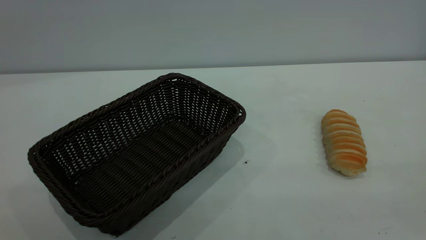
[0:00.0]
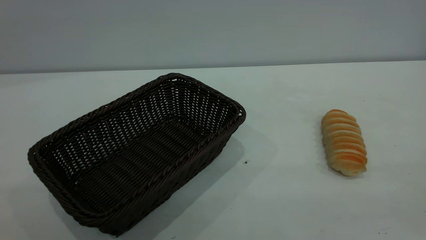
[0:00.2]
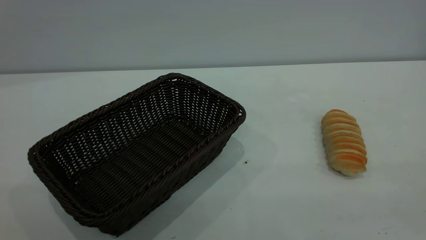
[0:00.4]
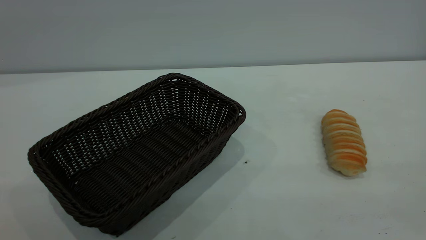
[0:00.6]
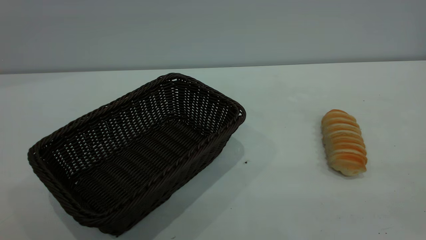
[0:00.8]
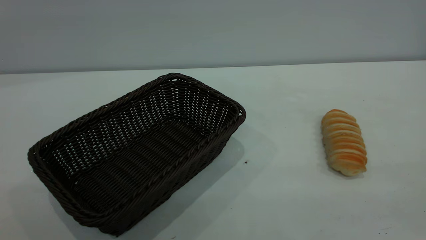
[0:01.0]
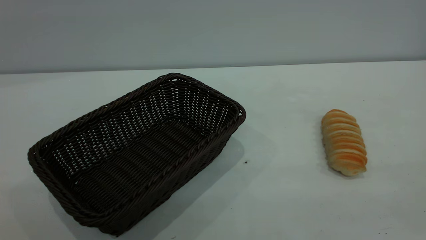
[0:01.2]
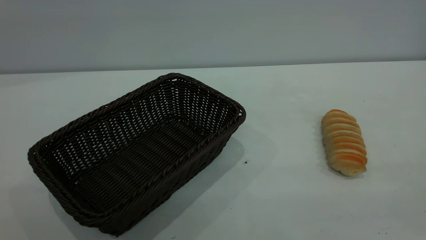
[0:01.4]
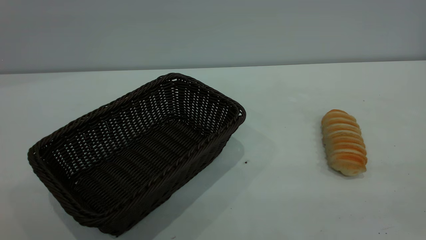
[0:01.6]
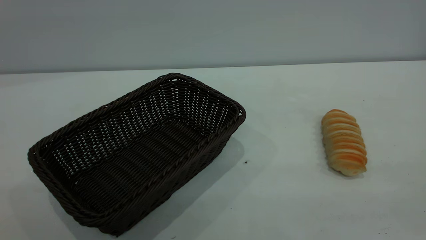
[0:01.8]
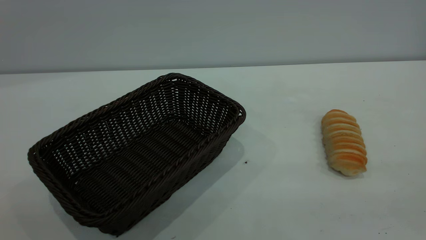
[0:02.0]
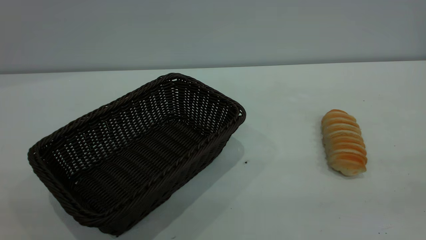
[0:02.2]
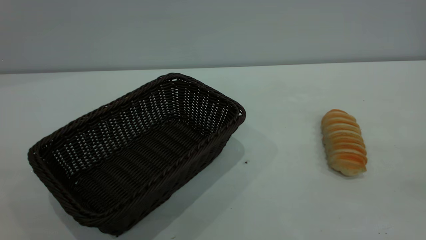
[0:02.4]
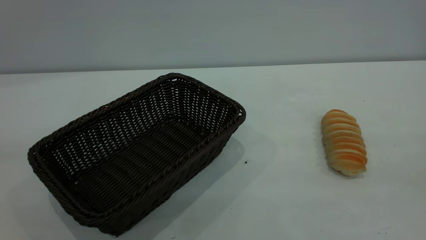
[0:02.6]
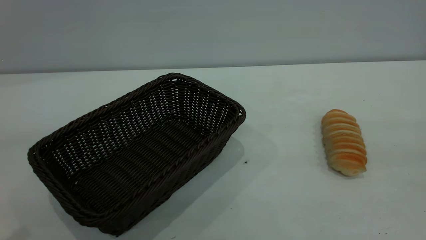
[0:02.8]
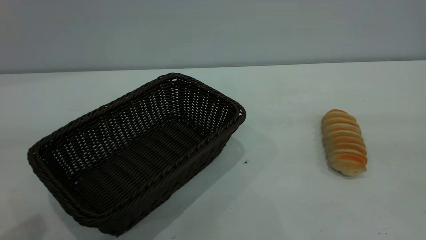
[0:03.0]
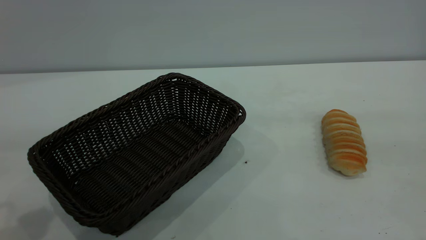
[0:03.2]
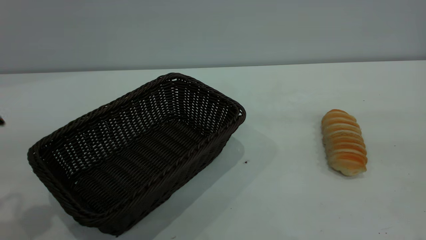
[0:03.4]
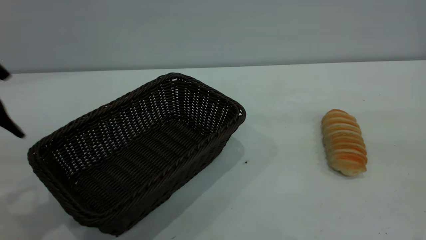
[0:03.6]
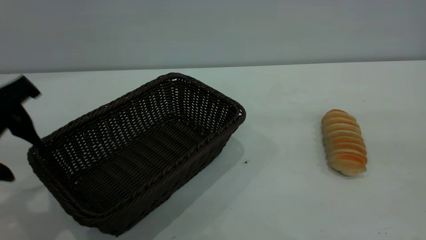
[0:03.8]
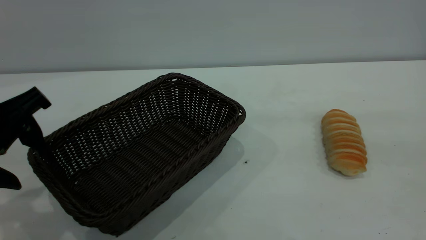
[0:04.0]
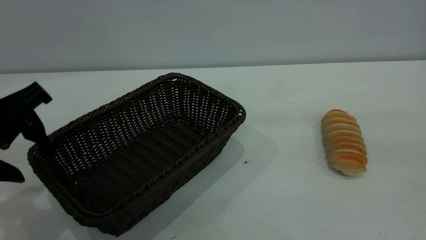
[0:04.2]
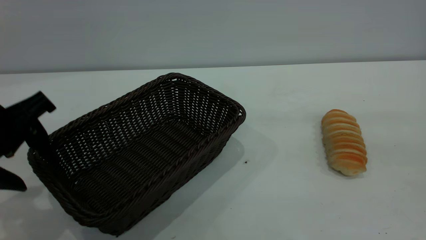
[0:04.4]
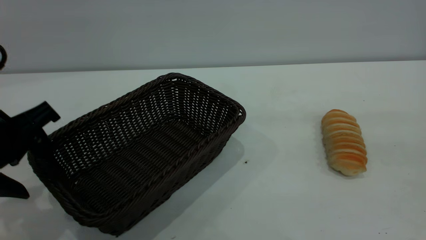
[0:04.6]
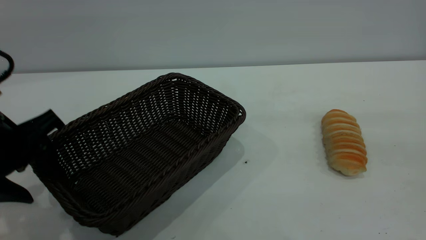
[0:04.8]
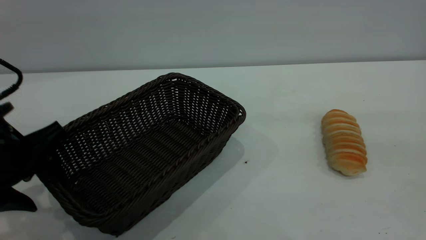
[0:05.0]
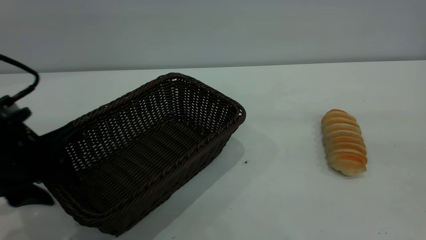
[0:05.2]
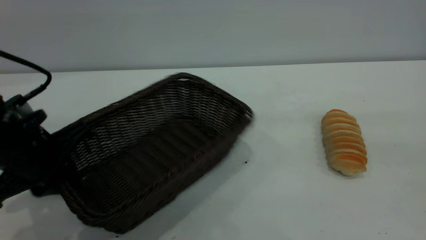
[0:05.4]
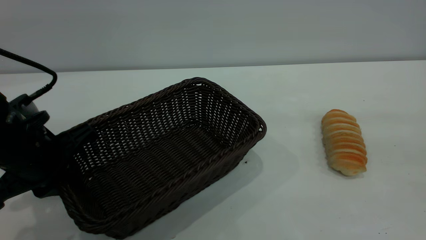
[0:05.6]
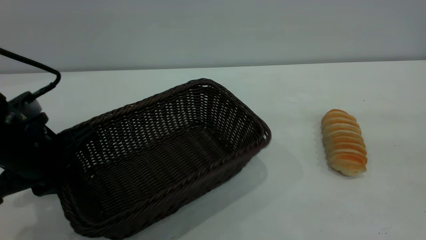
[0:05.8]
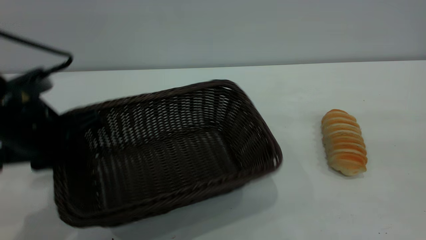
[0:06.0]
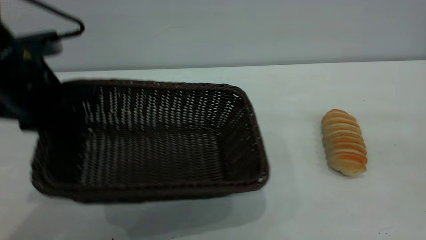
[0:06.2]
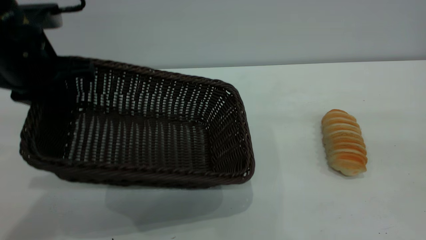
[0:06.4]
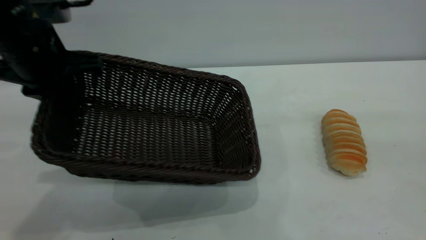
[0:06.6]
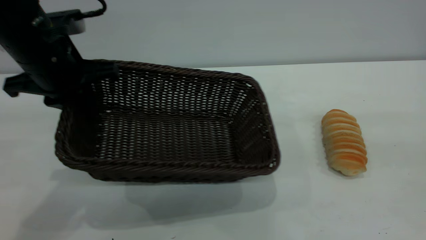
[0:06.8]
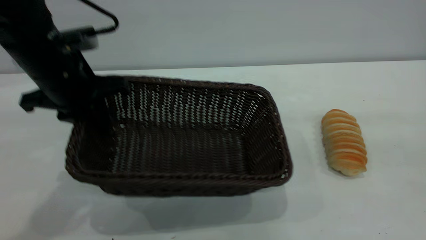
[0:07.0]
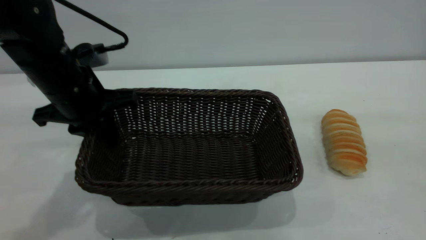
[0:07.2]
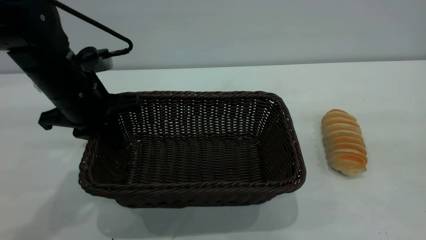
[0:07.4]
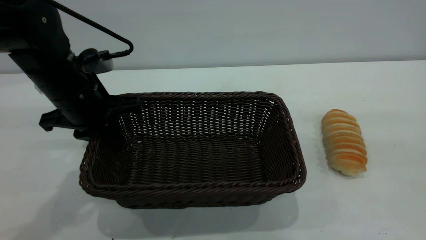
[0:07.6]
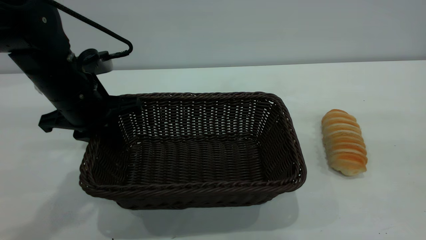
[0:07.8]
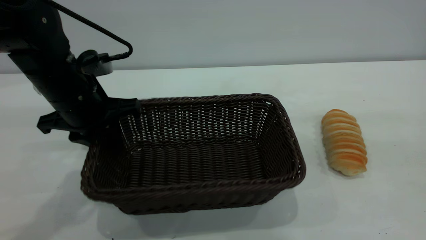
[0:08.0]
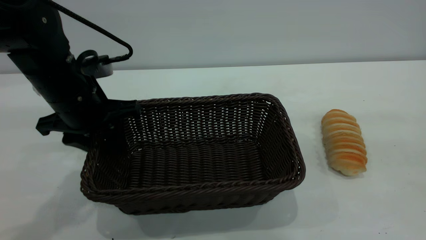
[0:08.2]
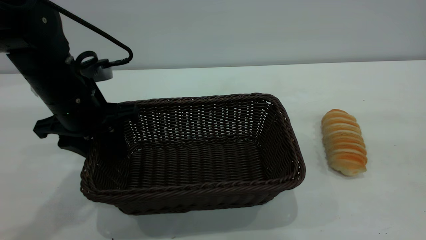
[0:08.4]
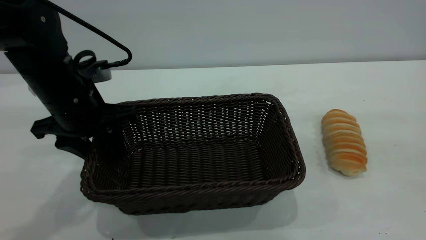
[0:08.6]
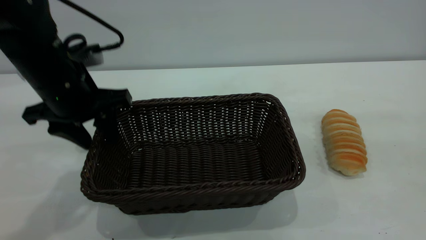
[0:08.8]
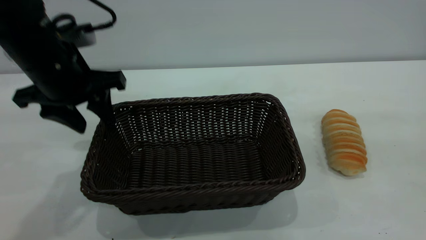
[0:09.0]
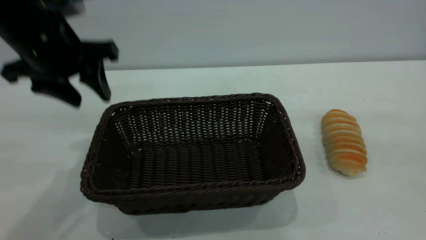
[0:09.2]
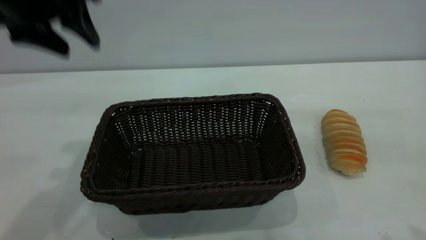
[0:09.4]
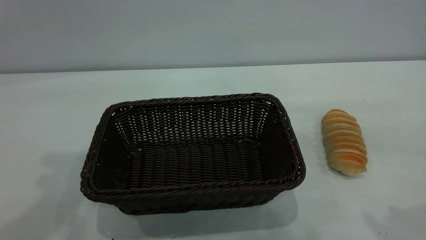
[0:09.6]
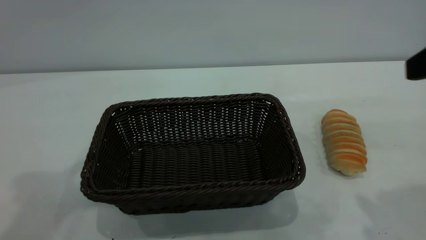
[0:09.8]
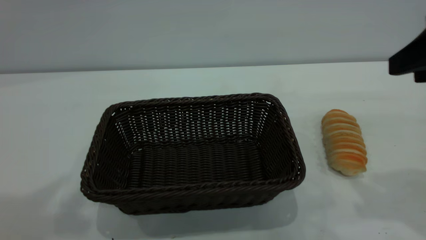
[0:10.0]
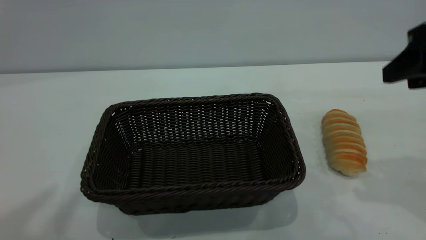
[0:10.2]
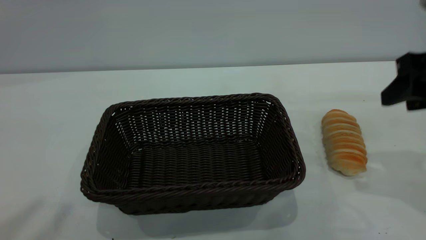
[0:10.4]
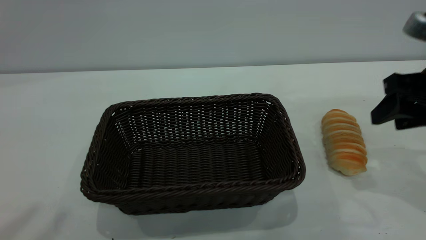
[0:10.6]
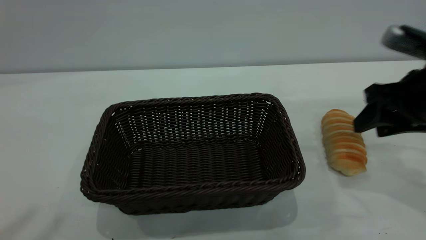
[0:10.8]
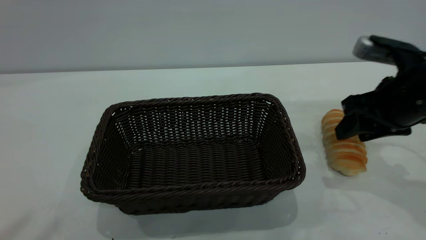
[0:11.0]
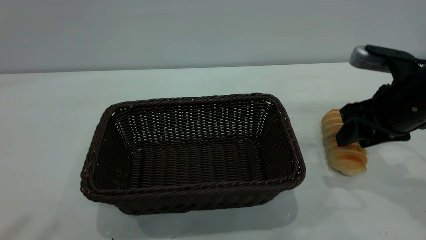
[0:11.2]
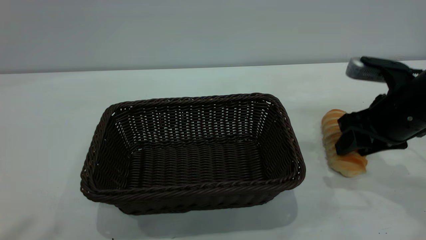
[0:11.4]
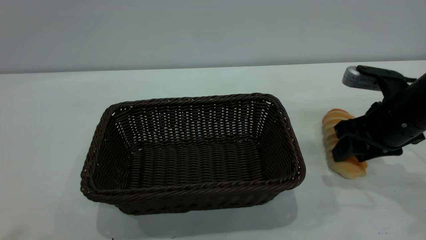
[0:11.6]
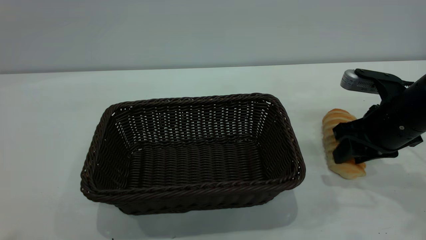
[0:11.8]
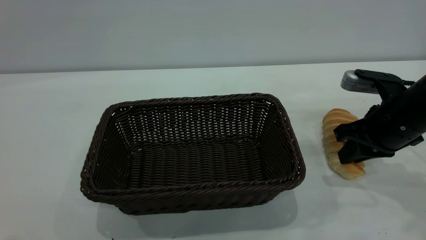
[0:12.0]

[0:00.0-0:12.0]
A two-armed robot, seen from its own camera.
Task of the whole recording: One hand grasps the black basket and places it in the middle of the table, while the other hand picks up the long bread and puts it into the black basket.
Step, 0:00.0 to 0:09.2: Move the basket to the center of view.
0:00.0 to 0:01.6: Both grippers stay put.
0:03.0 to 0:04.4: The left gripper moves downward and forward, some 15 cm.
0:04.4 to 0:06.0: The left gripper ends up approximately 5 cm from where it was, and closes.
0:06.0 to 0:07.6: The left gripper moves forward, approximately 5 cm, and reaches approximately 5 cm upward, then returns.
0:07.6 to 0:09.0: The left gripper heads upward, covering roughly 5 cm, and opens up.
0:09.0 to 0:10.4: The right gripper shifts about 20 cm forward and downward; the left gripper shifts about 35 cm upward and backward.
0:10.4 to 0:12.0: The right gripper shifts about 10 cm downward, and closes its fingers.

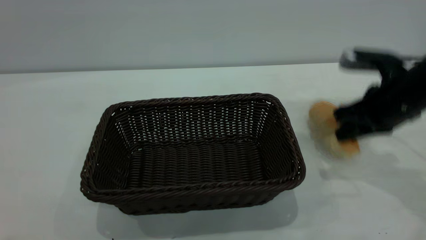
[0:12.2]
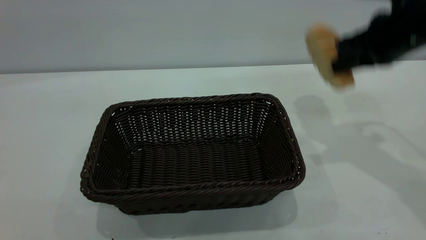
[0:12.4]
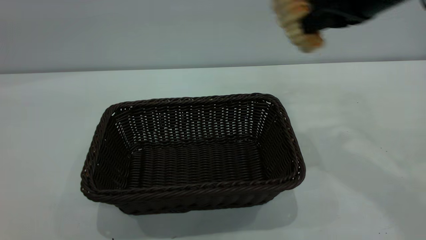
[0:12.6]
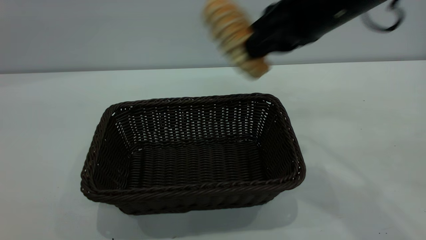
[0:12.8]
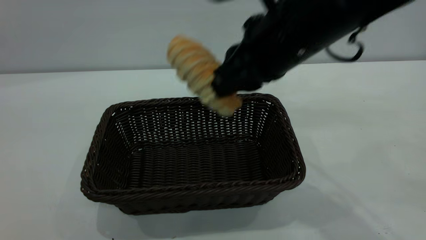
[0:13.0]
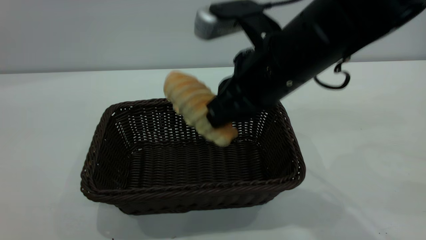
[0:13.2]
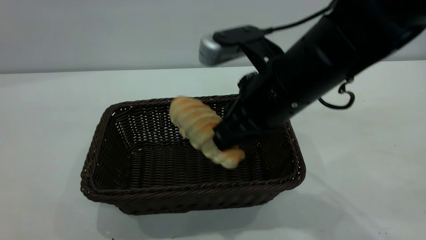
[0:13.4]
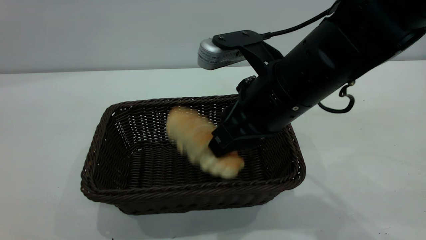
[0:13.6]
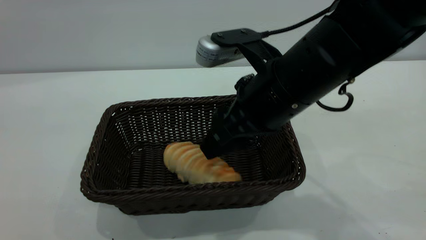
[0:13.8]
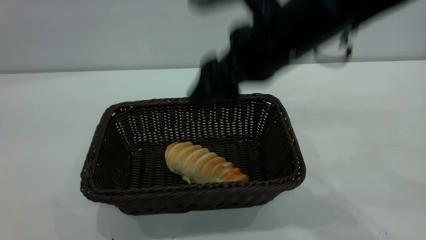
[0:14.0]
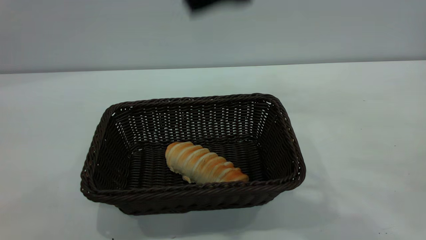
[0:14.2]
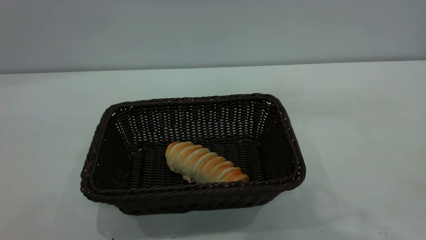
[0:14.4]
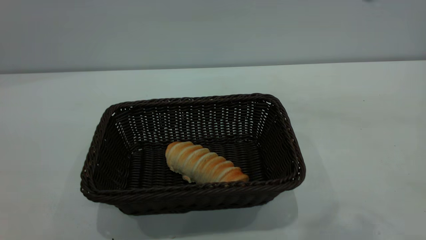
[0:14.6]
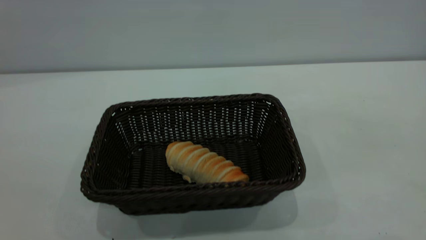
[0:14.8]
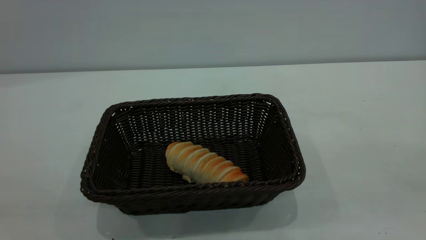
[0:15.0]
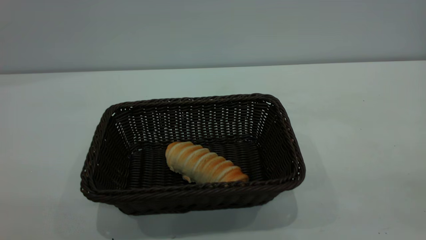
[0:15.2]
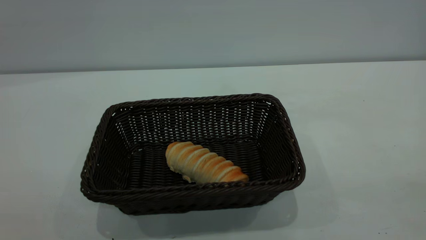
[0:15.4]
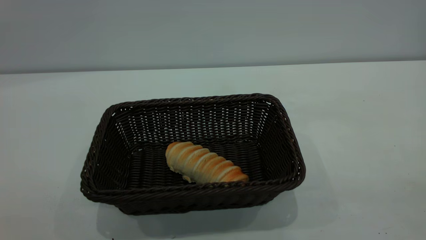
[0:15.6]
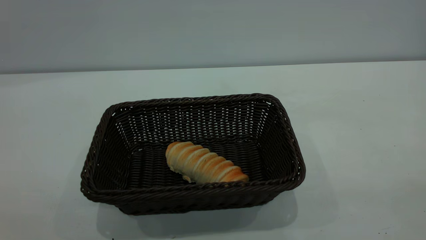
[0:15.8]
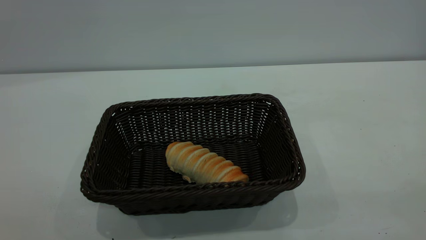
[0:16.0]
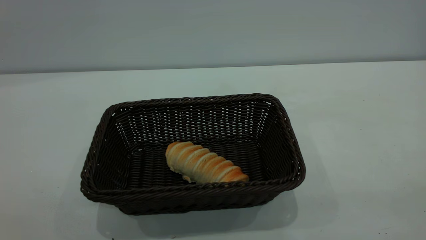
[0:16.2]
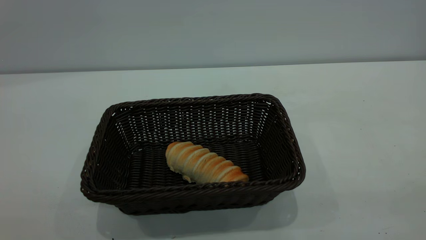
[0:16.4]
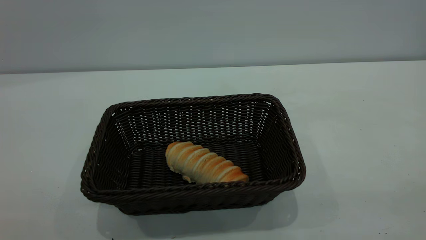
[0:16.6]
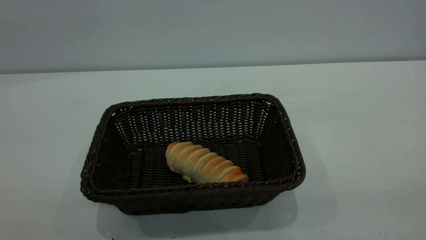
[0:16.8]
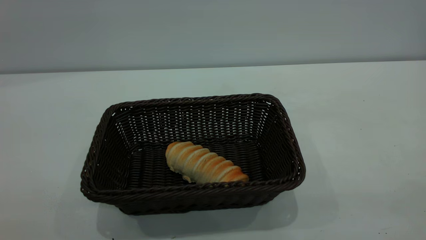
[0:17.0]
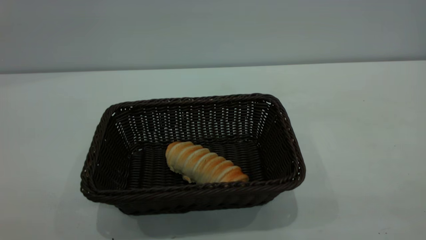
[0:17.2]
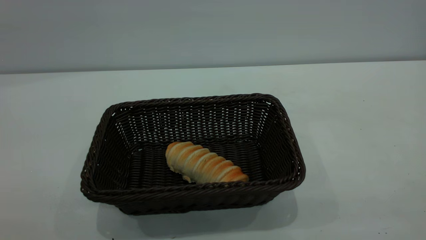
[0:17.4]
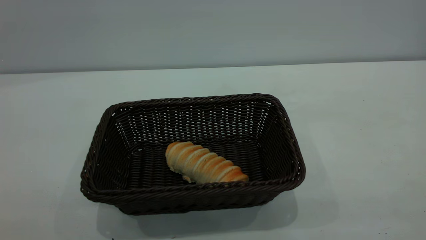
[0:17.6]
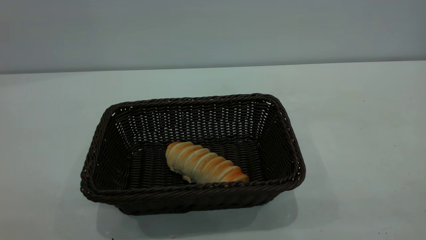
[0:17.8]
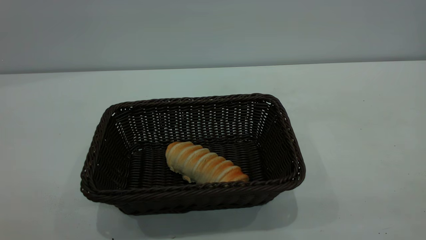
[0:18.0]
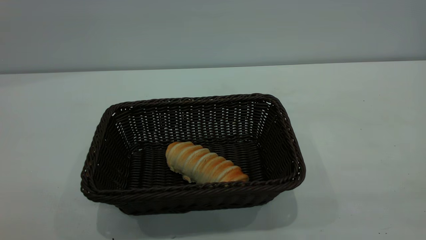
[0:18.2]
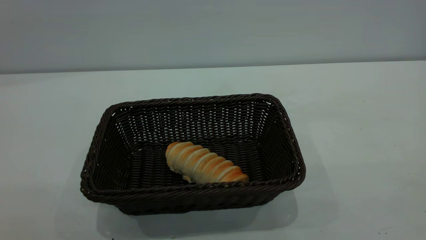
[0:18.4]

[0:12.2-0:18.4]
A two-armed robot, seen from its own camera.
Task of the whole recording: One hand grasps the black basket and places it in the middle of the table, while the other hand picks up the long bread and puts it into the black basket.
Step, 0:12.4 to 0:14.0: place the bread into the basket.
0:12.2 to 0:13.8: The left gripper heads backward, covering roughly 5 cm, while the right gripper travels to the left by approximately 20 cm, and opens its fingers.
0:13.8 to 0:15.4: The right gripper heads backward, to the right and upward, covering roughly 40 cm; the left gripper goes approximately 15 cm downward.
